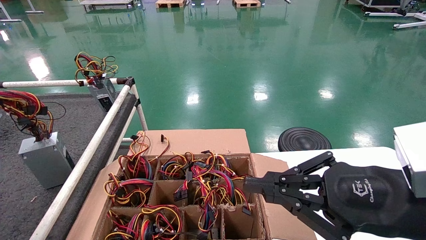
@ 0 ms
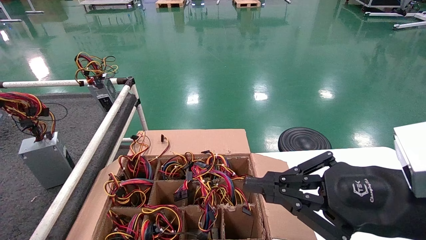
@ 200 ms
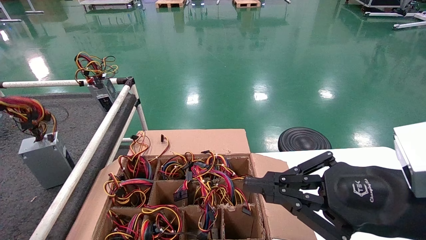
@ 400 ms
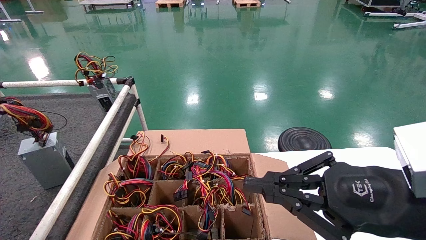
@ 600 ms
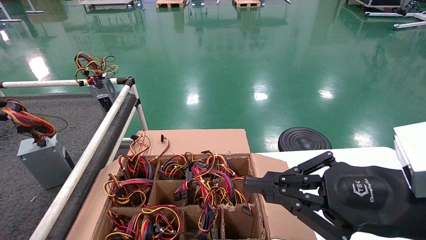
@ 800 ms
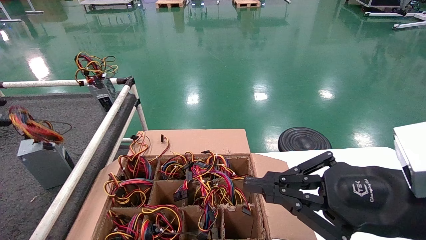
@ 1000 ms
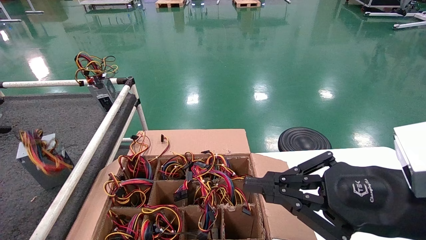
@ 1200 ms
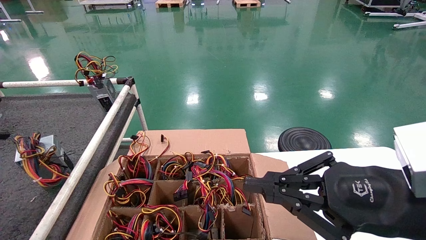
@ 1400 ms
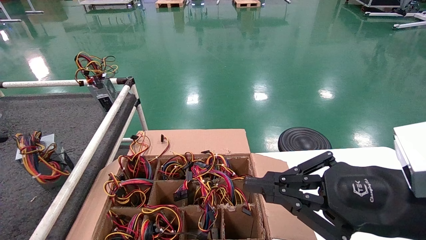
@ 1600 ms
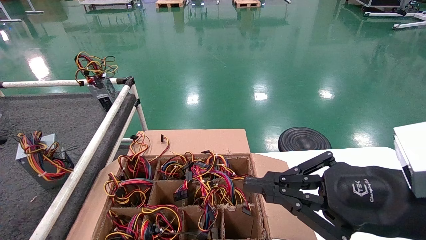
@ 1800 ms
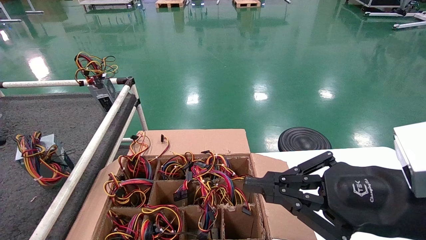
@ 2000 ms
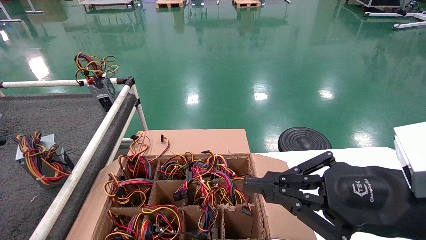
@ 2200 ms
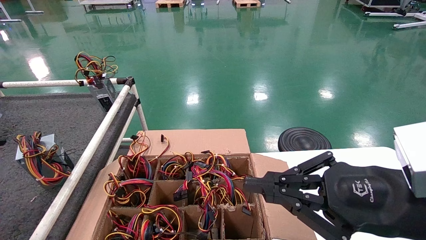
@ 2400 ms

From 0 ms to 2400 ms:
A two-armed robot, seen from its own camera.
From 0 ms to 1200 ms: The grippers stay close to where they were, moving slightly.
From 1200 ms to 2400 ms: The left gripper opens its fingers.
